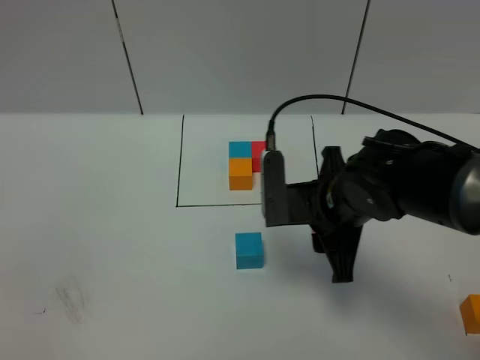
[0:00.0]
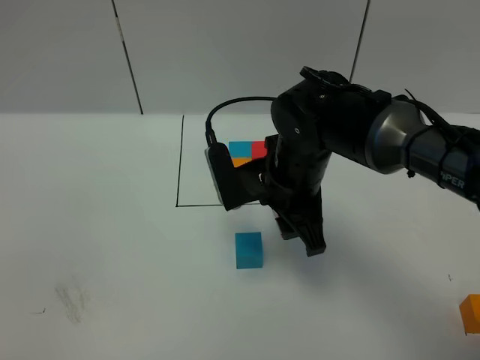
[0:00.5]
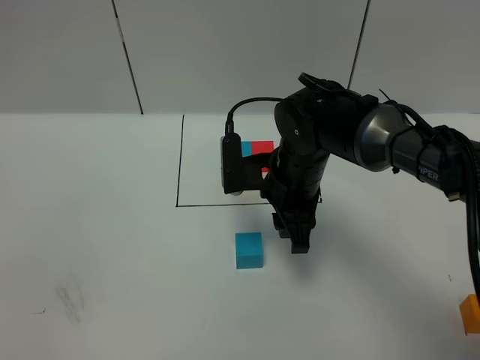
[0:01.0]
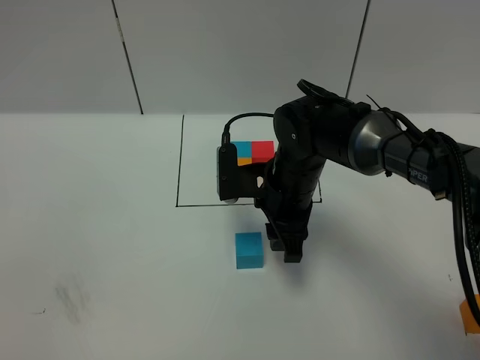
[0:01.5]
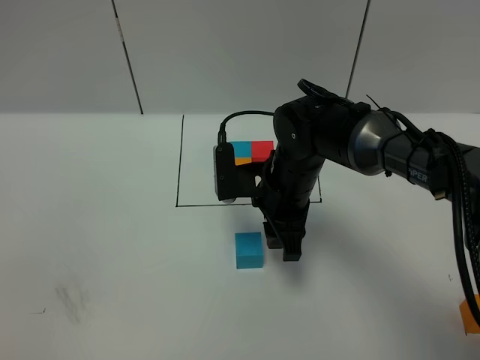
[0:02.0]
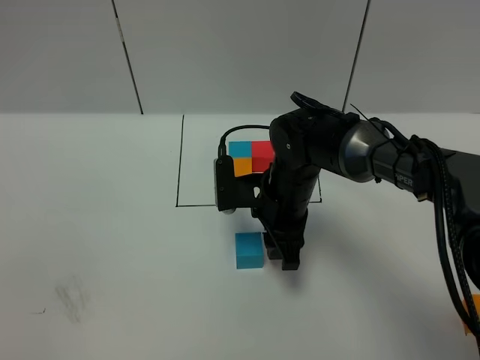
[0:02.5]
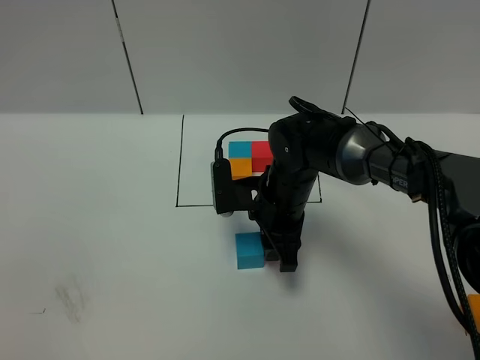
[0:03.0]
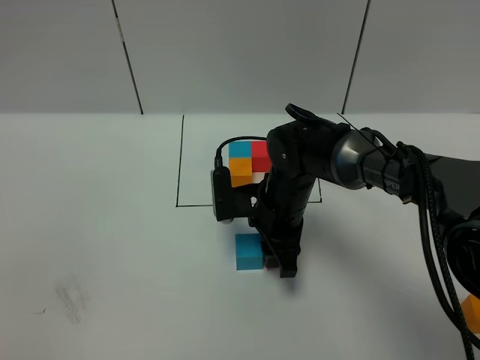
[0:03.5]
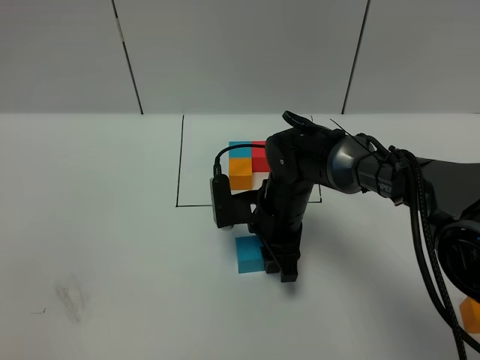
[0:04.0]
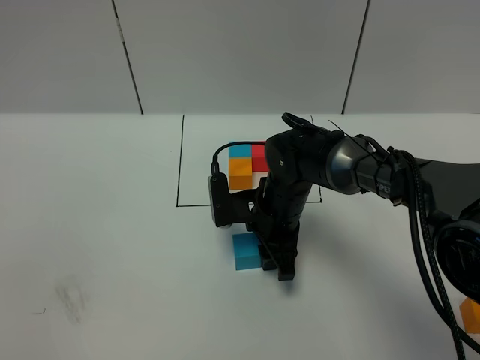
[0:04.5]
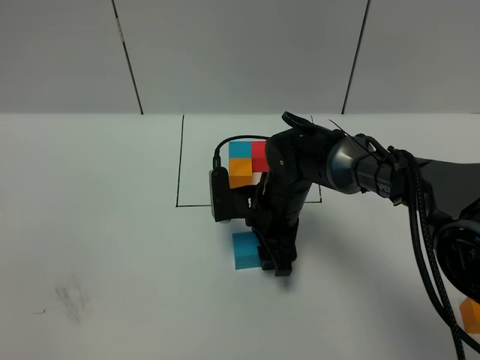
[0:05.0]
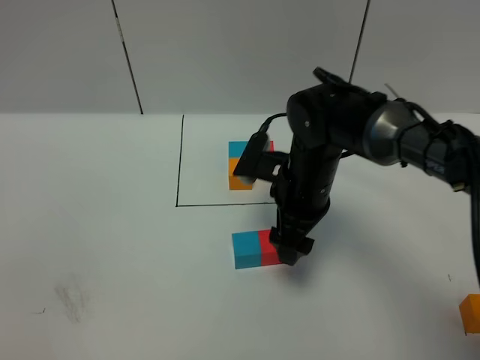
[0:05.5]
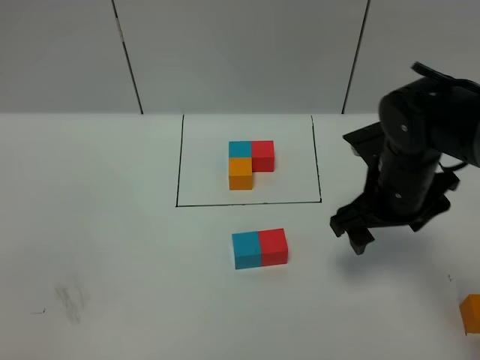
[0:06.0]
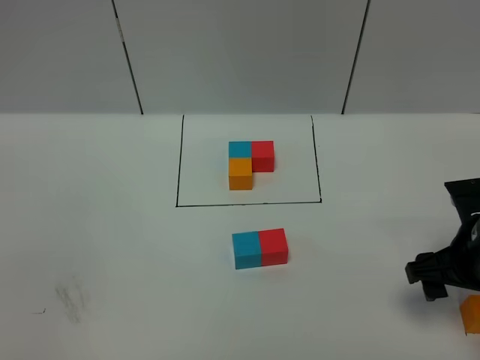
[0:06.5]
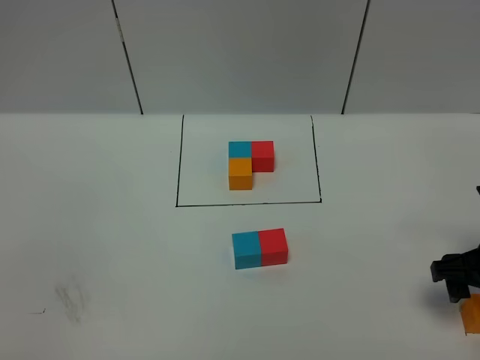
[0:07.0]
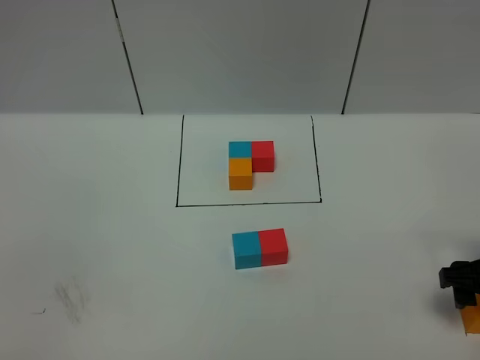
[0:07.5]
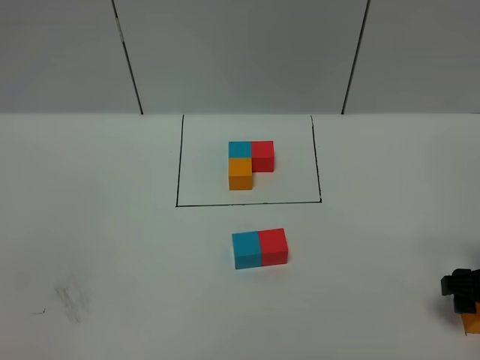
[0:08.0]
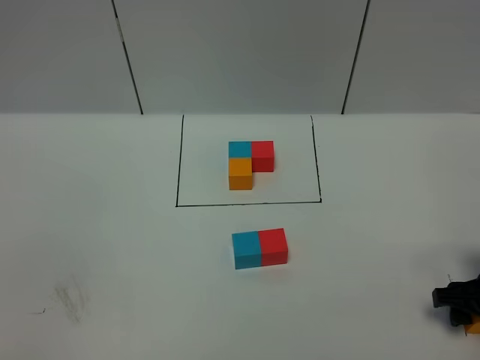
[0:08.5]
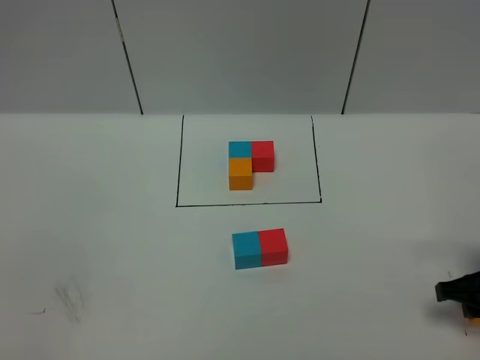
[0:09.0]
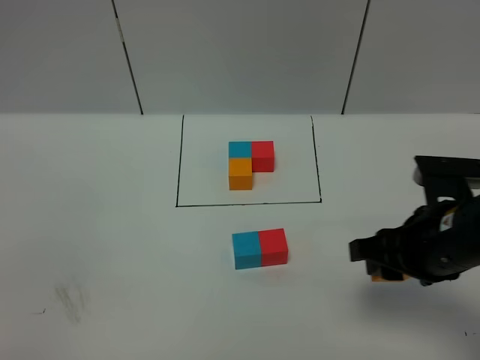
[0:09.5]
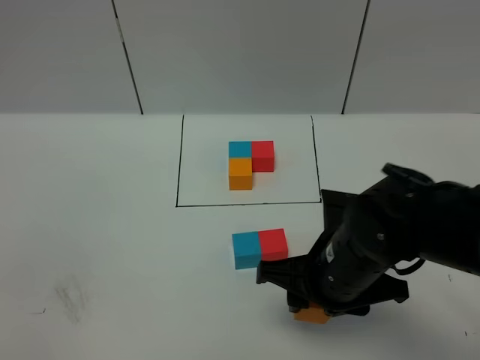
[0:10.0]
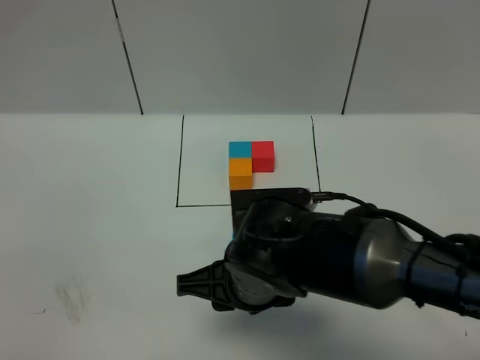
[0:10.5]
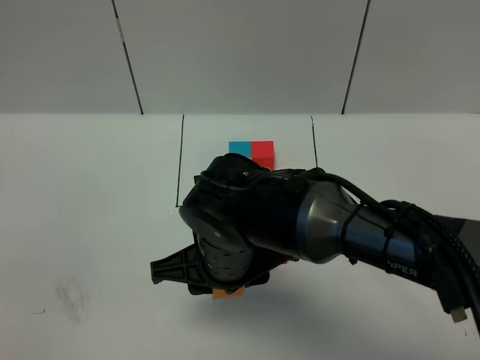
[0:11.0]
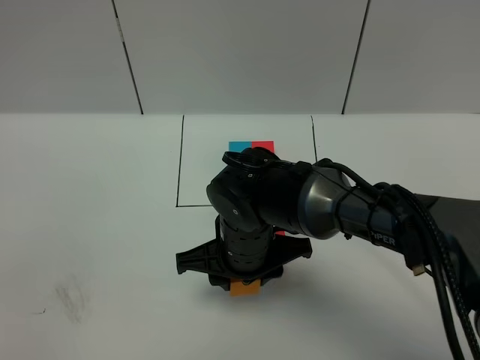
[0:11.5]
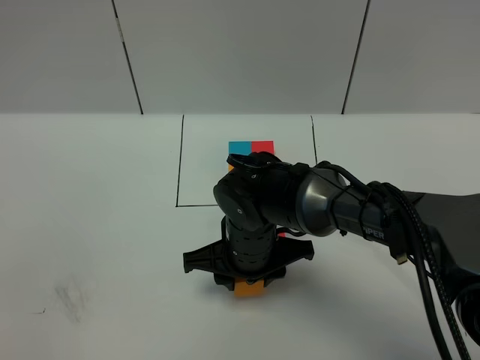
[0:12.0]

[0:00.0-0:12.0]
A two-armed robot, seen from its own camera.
Task of the whole recording: According to the building block template in front, assemble the scattered blocks together.
Step, 0:00.0 to 0:05.5: Put the red cube on the right of the blue cube.
0:00.0 to 0:02.0: The right gripper moves forward, about 5 cm.
0:02.0 to 0:04.0: The right gripper goes some 5 cm downward.
0:04.0 to 0:06.0: The right gripper heads to the right and upward, covering approximately 15 cm, and opens.
0:06.0 to 0:08.0: The right gripper heads to the right, backward and downward, covering some 15 cm.
0:08.0 to 0:10.0: The right gripper travels to the left by some 20 cm, and closes.
0:10.0 to 0:12.0: The right gripper goes about 10 cm to the left and forward.

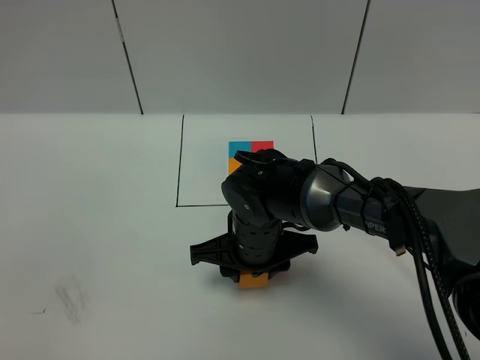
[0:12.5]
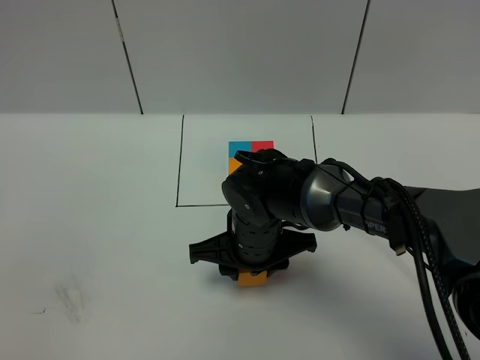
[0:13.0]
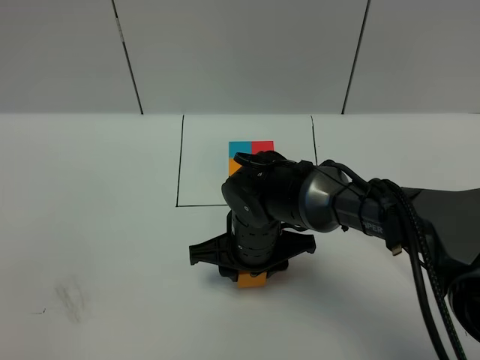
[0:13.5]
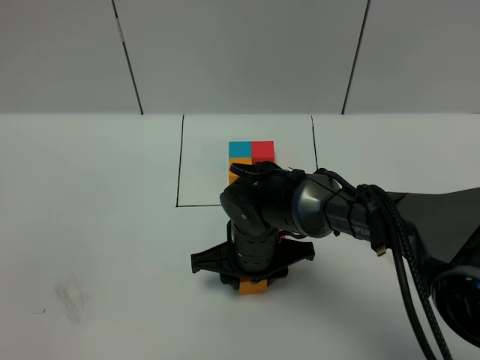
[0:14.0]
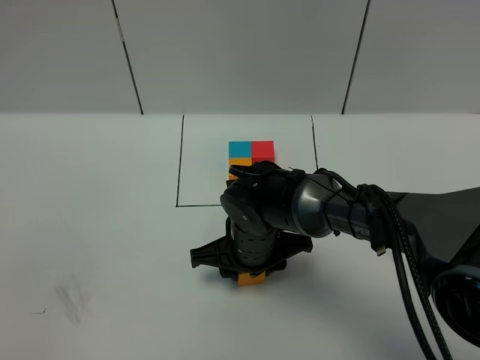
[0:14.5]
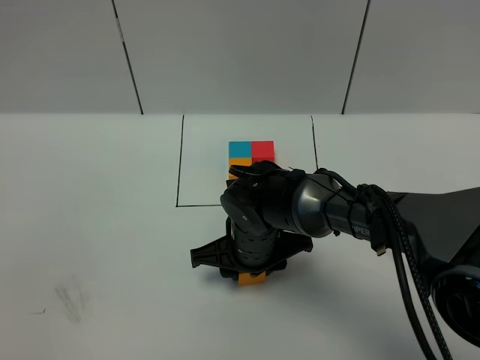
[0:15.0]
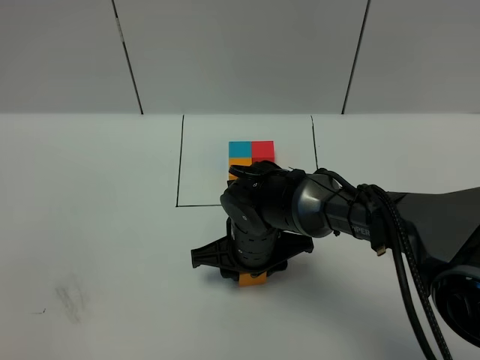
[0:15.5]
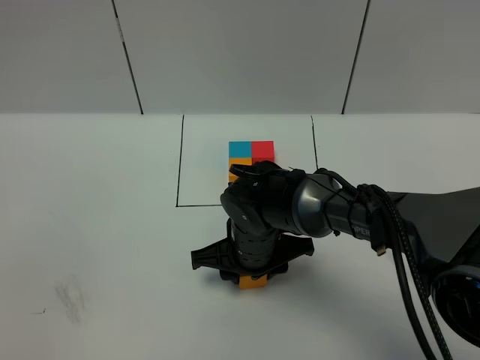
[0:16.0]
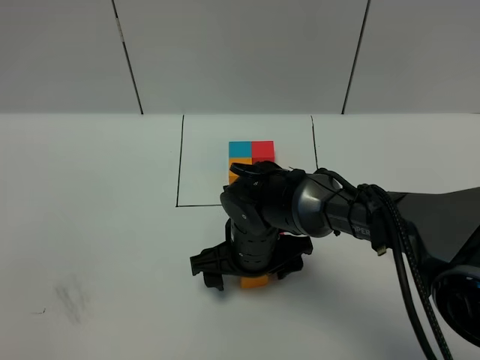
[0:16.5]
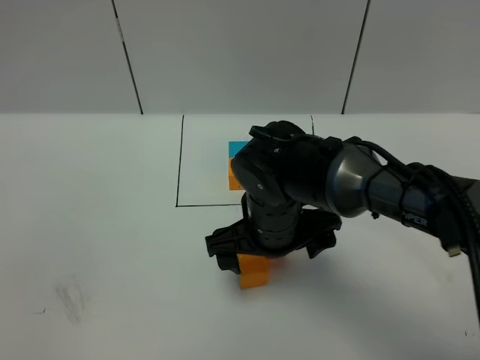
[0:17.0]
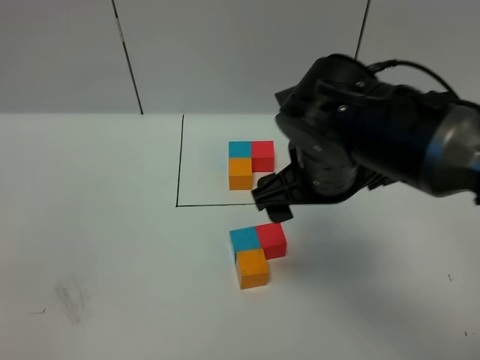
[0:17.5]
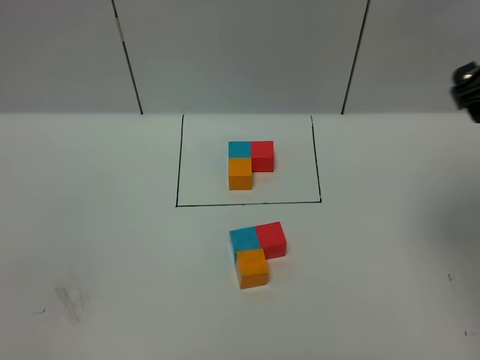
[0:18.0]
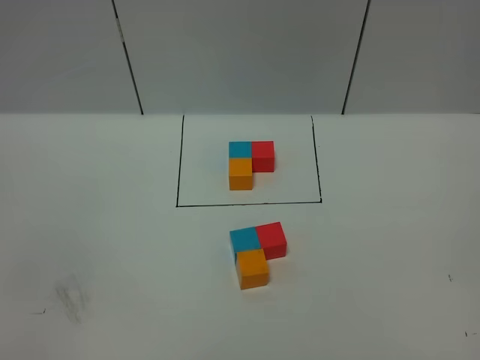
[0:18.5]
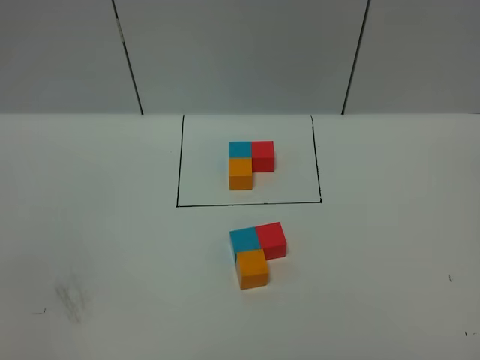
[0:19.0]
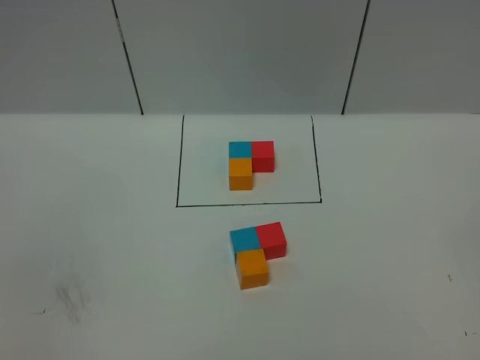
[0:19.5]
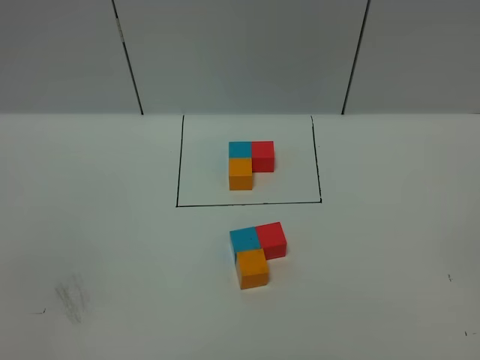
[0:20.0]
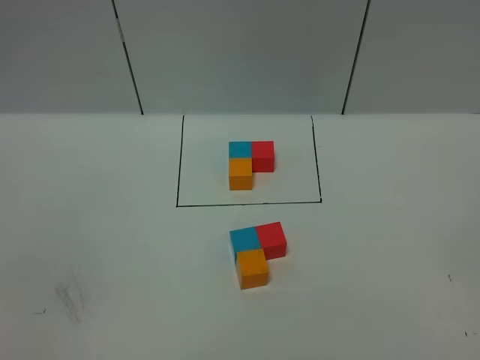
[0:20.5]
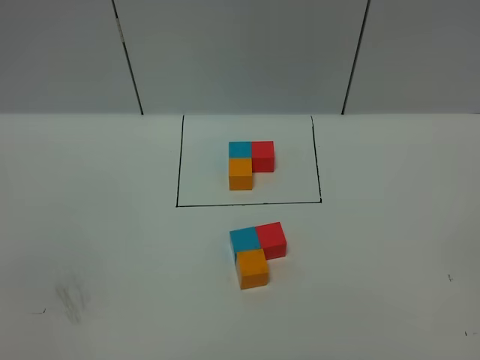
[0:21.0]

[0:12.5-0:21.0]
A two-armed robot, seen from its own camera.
Task of the whole recording: According to the building block template in front, assemble the scattered blocks together.
Step, 0:12.5 to 0:17.0: Put the orange cube in the front of the blue cube.
0:12.5 to 0:14.5: The grippers stay close to where they were, moving slightly.
0:14.5 to 0:16.5: The right gripper opens its fingers.
0:16.5 to 0:19.0: The right gripper goes some 50 cm to the right, backward and upward.
